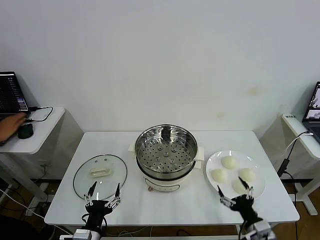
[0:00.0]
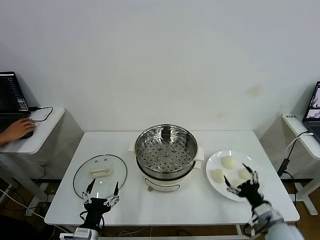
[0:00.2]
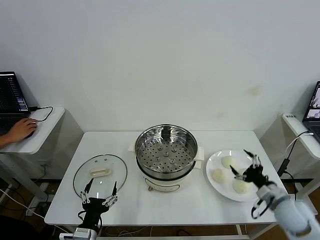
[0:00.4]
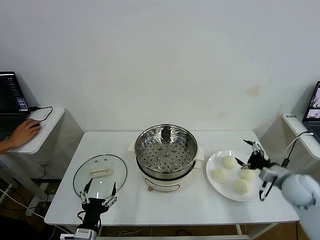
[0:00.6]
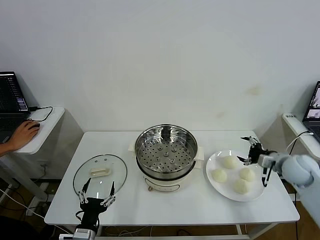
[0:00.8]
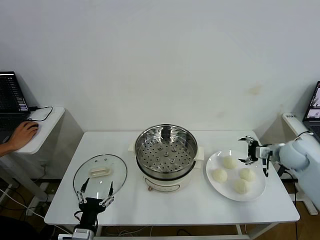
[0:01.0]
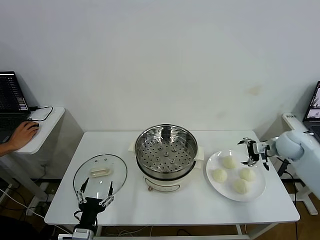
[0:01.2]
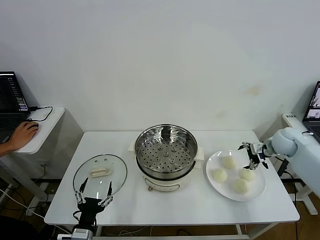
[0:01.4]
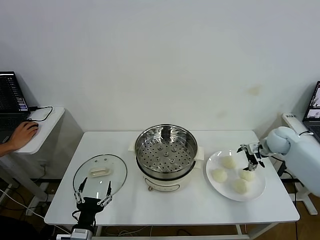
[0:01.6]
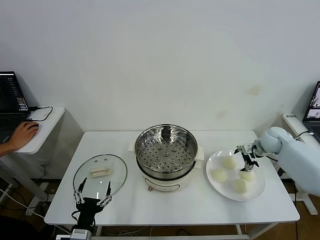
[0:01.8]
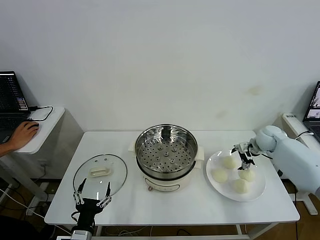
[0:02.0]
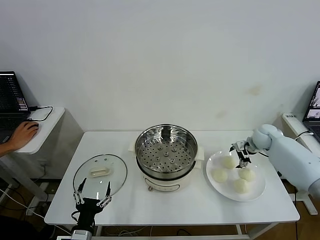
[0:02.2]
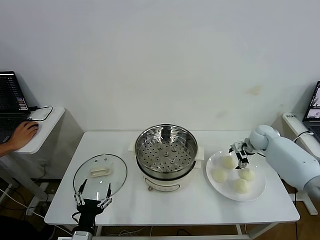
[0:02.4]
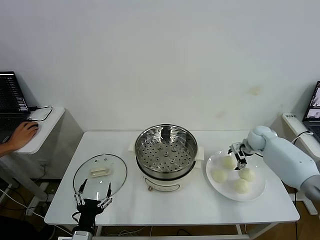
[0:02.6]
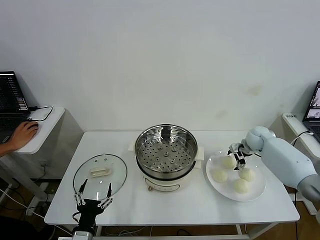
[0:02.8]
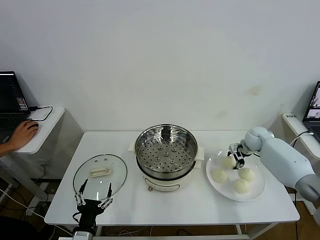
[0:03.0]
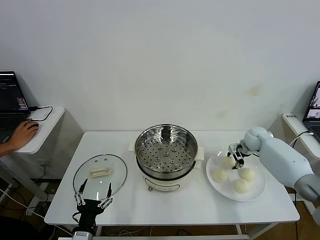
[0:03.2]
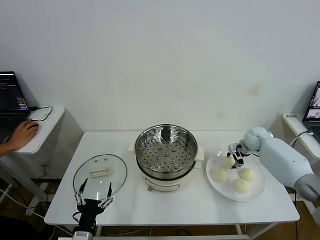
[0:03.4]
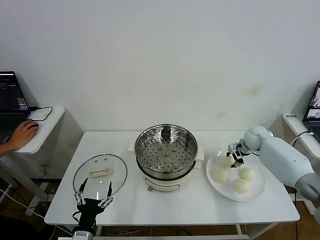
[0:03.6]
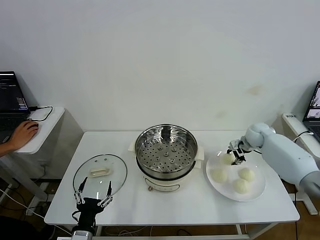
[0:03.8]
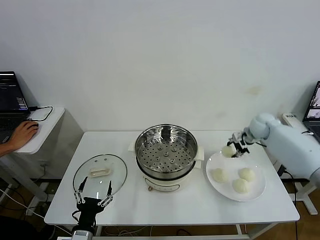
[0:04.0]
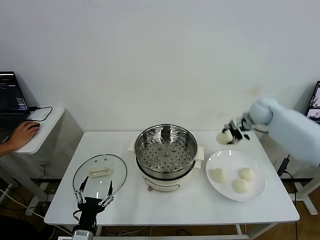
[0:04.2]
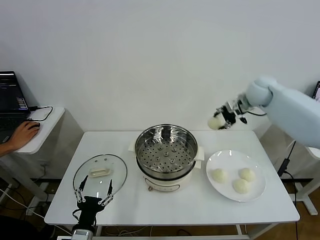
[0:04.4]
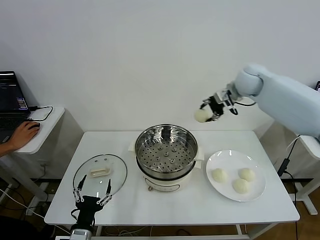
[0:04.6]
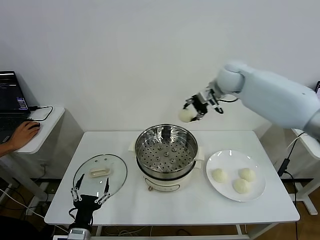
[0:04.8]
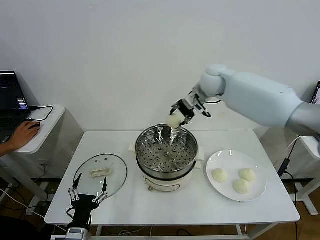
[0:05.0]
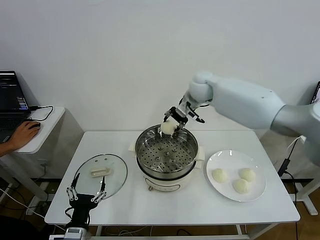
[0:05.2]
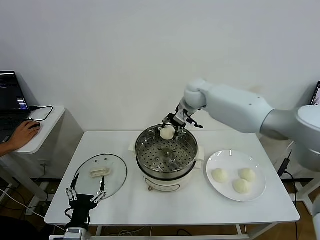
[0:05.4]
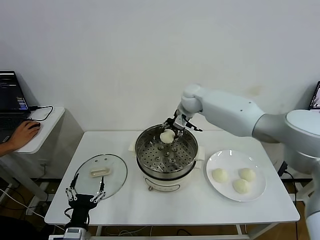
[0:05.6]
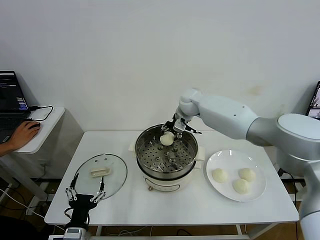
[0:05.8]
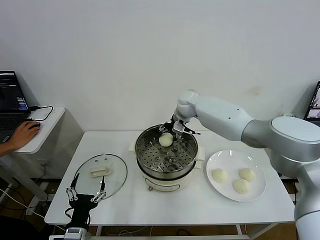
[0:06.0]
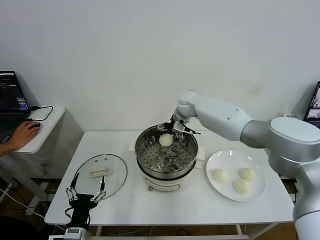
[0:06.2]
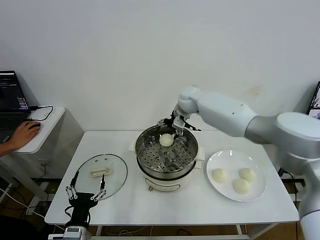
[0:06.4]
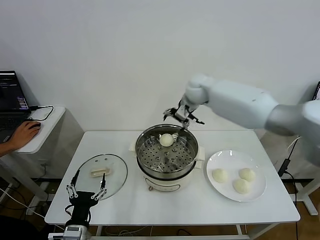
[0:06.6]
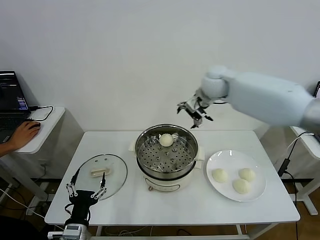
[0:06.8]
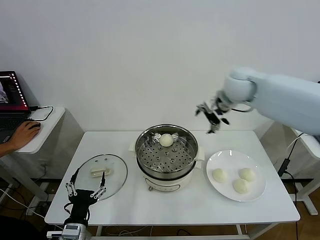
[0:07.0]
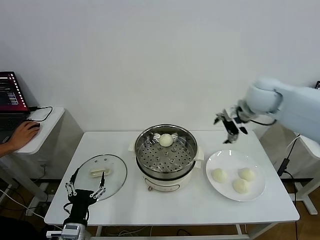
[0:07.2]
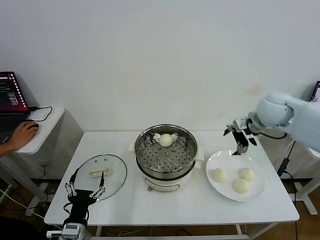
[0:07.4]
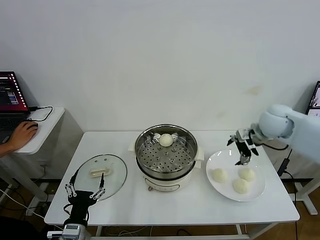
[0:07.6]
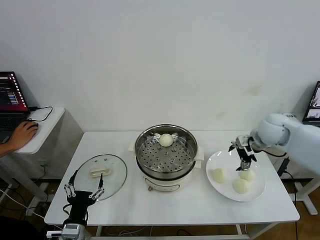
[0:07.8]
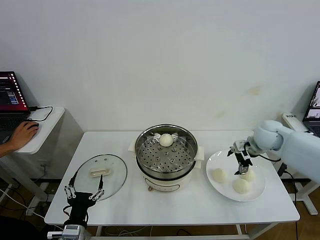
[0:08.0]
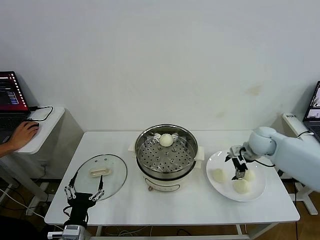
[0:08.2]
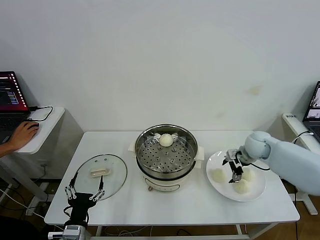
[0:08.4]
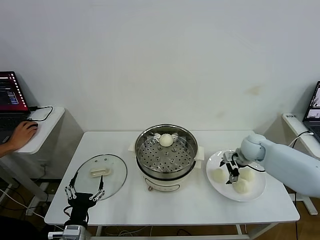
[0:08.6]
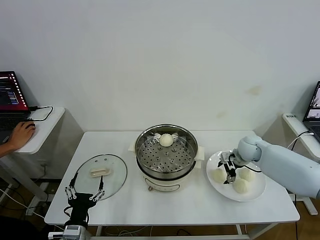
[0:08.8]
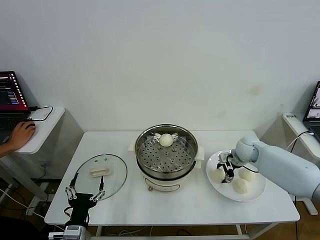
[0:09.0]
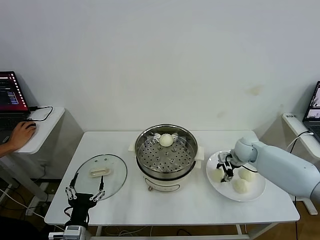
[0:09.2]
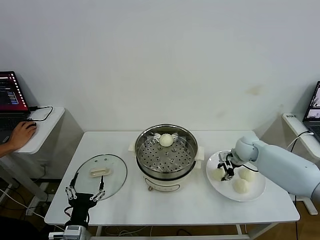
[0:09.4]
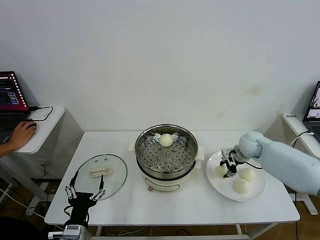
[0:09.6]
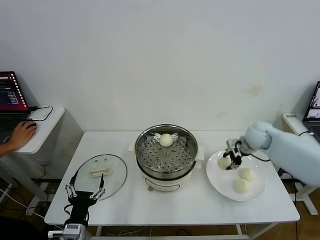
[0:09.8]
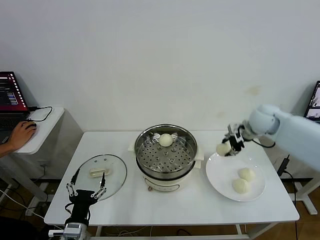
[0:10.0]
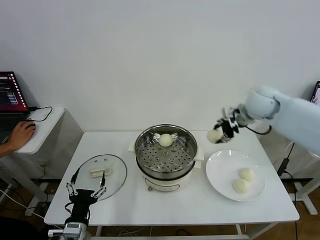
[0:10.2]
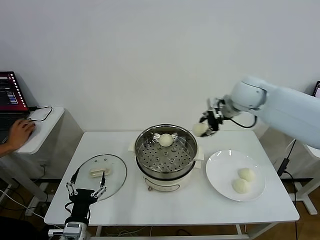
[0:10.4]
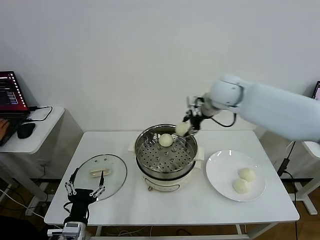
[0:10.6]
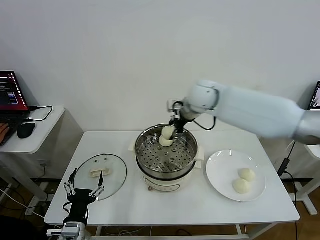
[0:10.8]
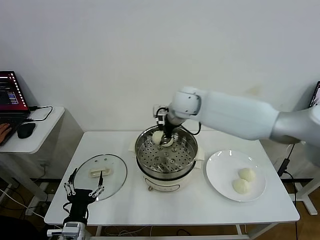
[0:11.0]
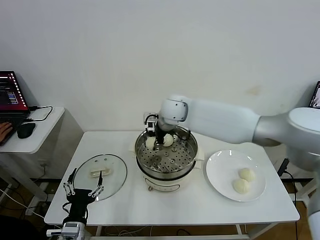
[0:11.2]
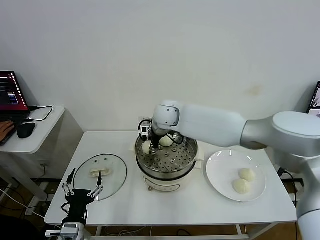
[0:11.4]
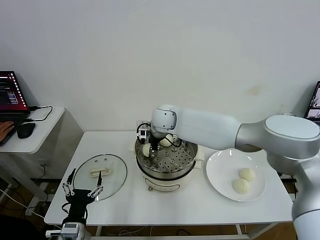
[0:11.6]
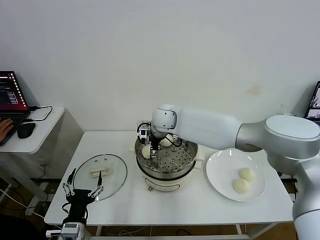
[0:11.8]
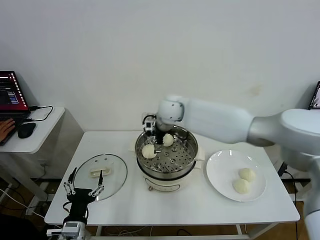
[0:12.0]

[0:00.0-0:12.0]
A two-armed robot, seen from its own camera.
Step, 0:00.0 to 0:03.2: Grasp the baozi in the plate with right gripper.
Step, 0:03.4 to 0:06.2: Place the baozi on the steamer with right gripper.
Step, 0:06.6 to 0:09.2: Grasp the baozi in the plate with right gripper.
Step, 0:09.4 to 0:12.0: Place the baozi on the steamer with right gripper.
0:01.6 to 0:03.0: The right gripper heads forward and downward, covering some 10 cm, and closes its fingers.
0:03.0 to 0:04.4: The right gripper travels upward by roughly 20 cm.
0:04.4 to 0:06.0: The right gripper heads to the left, covering about 20 cm, and opens.
0:06.0 to 0:07.6: The right gripper is displaced to the right and backward by approximately 30 cm.
0:07.6 to 0:09.0: The right gripper goes roughly 15 cm downward, and closes its fingers.
0:09.0 to 0:10.4: The right gripper moves upward, about 25 cm, and closes.
0:10.4 to 0:12.0: The right gripper goes roughly 20 cm to the left, and opens its fingers.

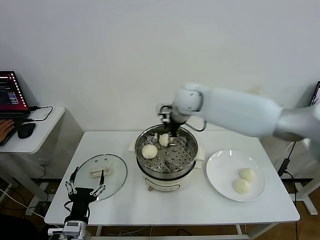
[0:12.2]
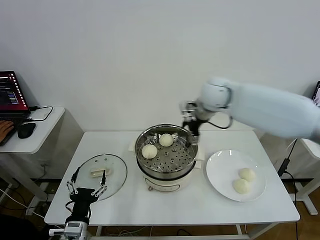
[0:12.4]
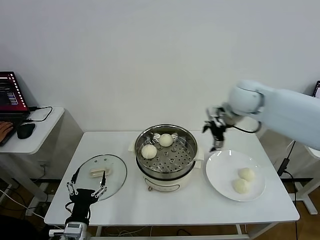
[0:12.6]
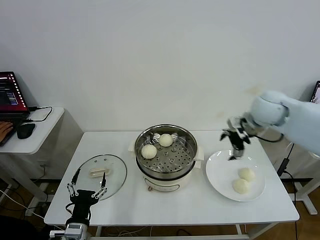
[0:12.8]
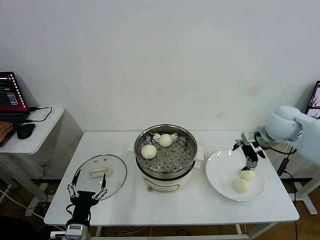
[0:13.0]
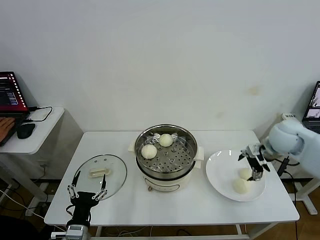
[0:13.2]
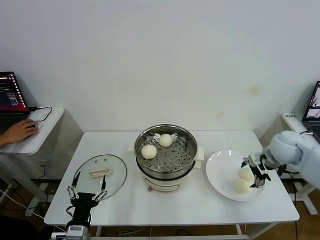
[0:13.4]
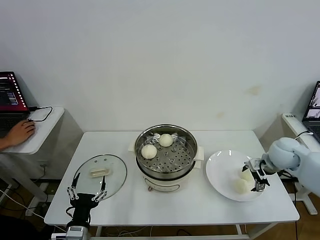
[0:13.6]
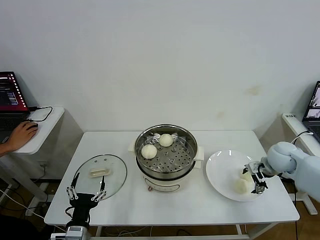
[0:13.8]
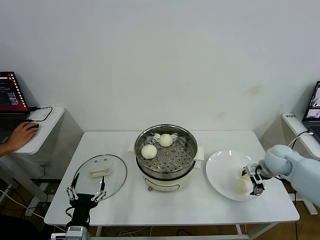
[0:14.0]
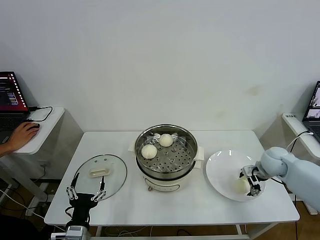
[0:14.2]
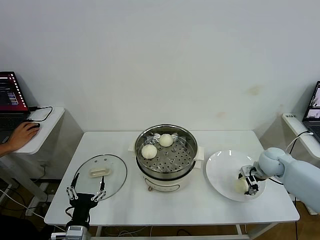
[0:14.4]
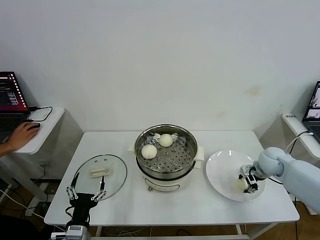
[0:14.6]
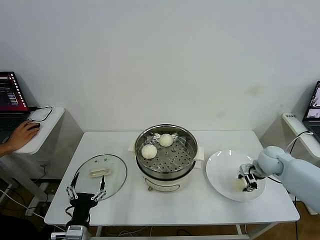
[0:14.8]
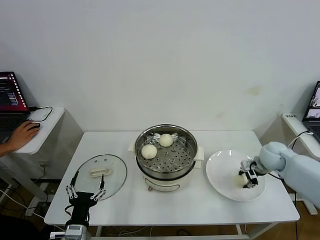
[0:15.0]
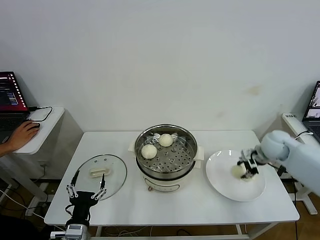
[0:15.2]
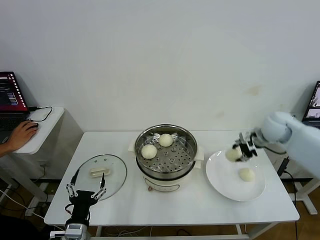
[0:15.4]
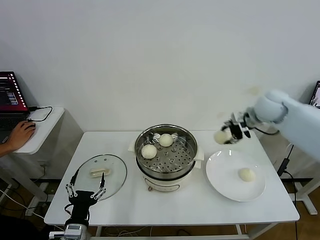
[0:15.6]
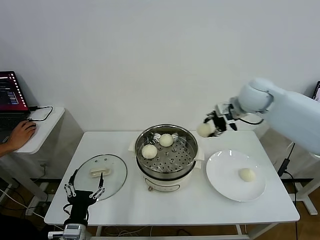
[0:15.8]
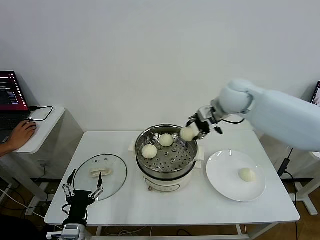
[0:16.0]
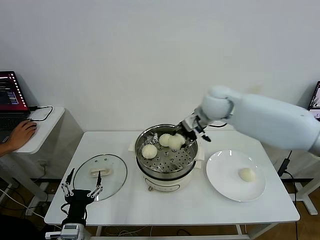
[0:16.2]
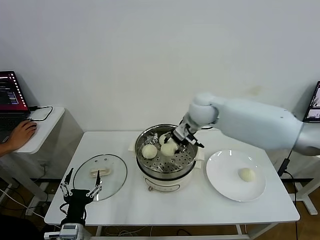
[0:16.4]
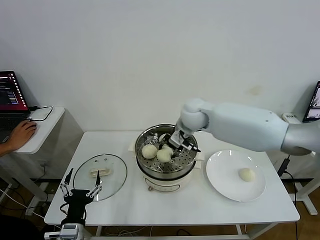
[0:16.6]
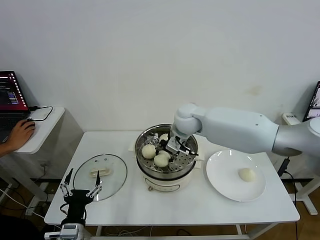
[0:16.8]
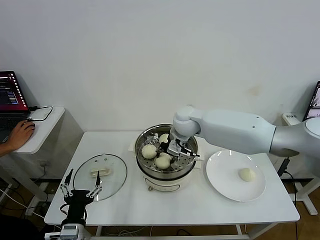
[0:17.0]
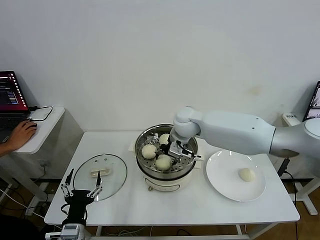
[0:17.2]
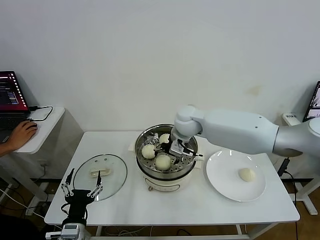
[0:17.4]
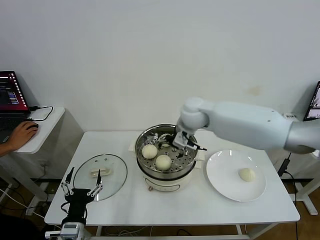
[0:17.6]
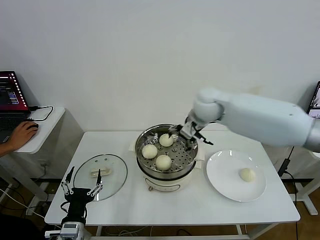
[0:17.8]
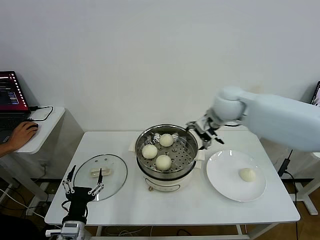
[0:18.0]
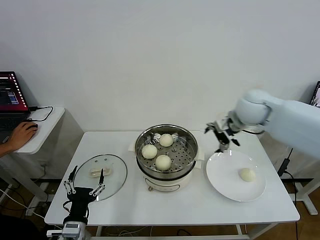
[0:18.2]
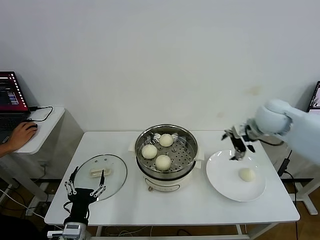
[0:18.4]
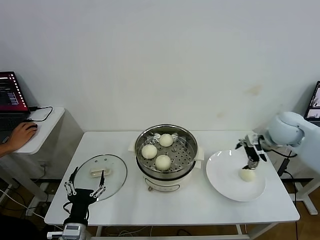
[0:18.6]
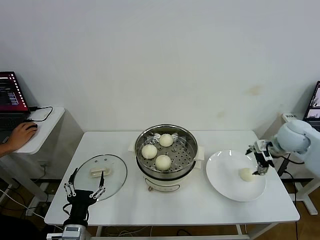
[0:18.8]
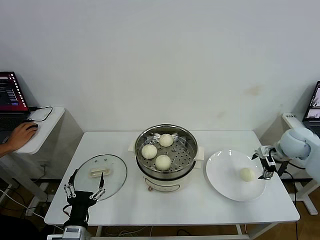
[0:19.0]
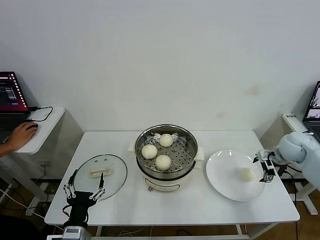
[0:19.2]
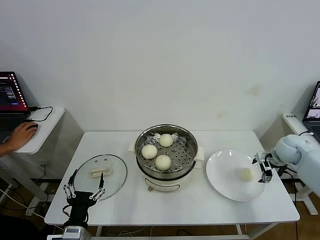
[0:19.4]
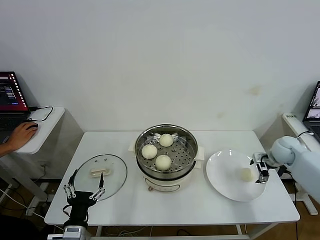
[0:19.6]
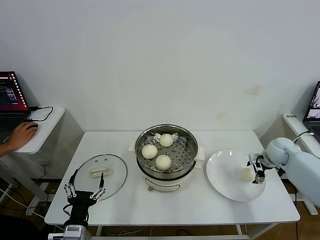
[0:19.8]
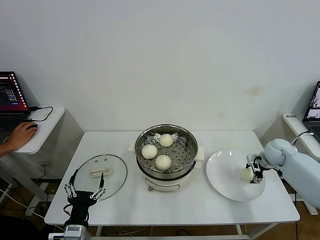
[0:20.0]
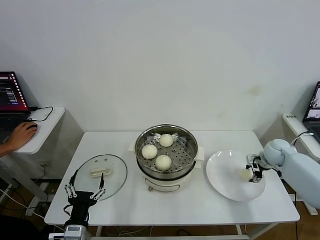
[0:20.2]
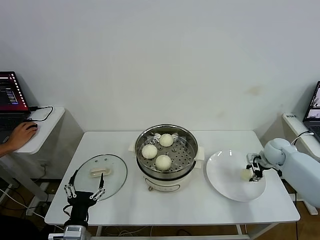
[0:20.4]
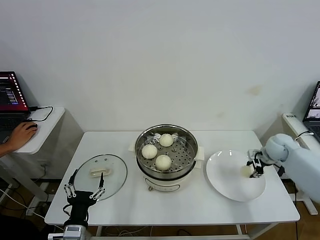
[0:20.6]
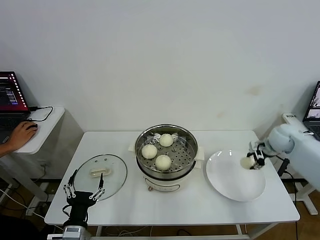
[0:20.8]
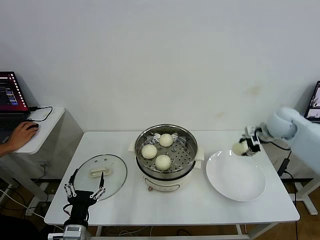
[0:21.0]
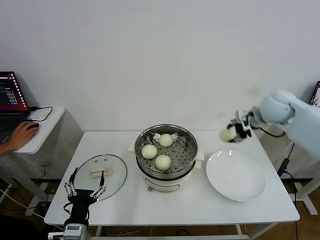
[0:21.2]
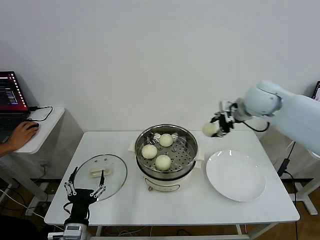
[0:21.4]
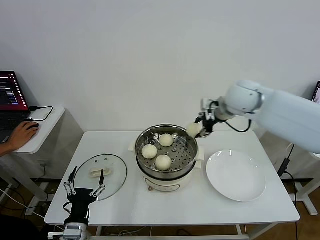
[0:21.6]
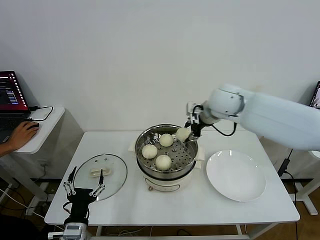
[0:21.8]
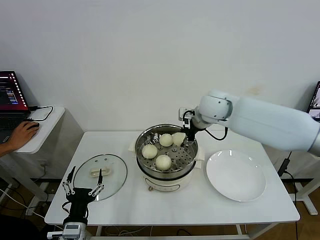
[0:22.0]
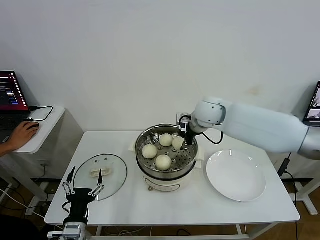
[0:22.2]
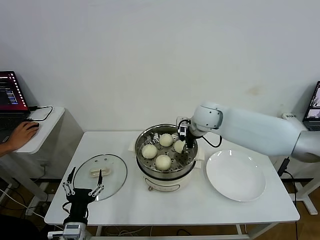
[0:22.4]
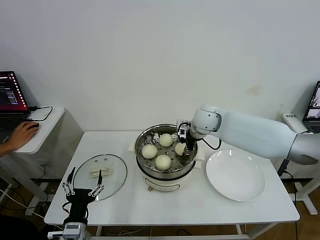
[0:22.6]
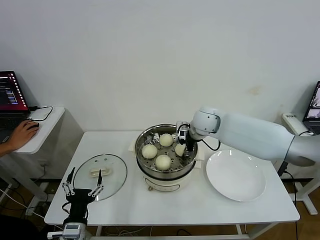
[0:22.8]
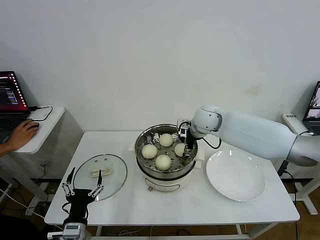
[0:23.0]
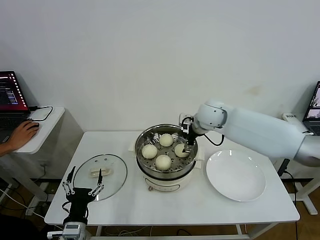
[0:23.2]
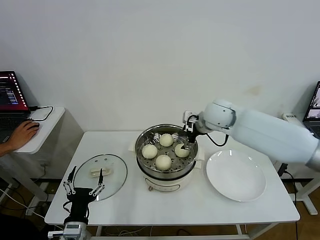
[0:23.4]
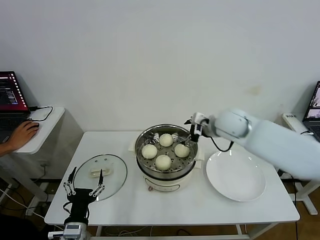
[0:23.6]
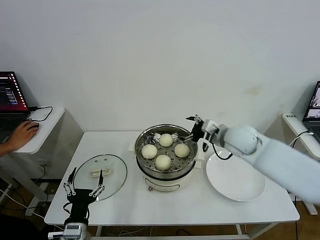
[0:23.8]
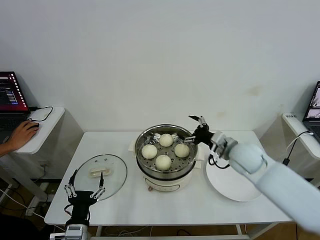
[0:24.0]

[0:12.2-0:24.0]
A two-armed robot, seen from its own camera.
Step, 0:12.2 to 0:14.6: Grasp the baozi in the plate with right gripper.
Step, 0:14.8 to 0:17.6: Place the baozi on the steamer with right gripper.
Step, 0:17.8 to 0:20.2: Grasp the baozi in the plate with right gripper.
Step, 0:20.4 to 0:23.2: Place the baozi on the steamer with right gripper.
0:12.2 to 0:13.6: The right gripper heads to the right and downward, covering approximately 35 cm.
0:13.6 to 0:15.2: The right gripper closes its fingers.
0:15.2 to 0:16.6: The right gripper goes roughly 30 cm to the left.
0:16.6 to 0:18.2: The right gripper goes some 15 cm to the right, and opens up.
0:18.2 to 0:19.6: The right gripper is displaced to the right and downward by about 25 cm.
0:19.6 to 0:21.0: The right gripper goes roughly 10 cm upward and to the left, and closes.
0:21.0 to 0:22.6: The right gripper is displaced to the left by roughly 25 cm.
0:22.6 to 0:24.0: The right gripper travels backward and to the right by roughly 15 cm, and opens.
